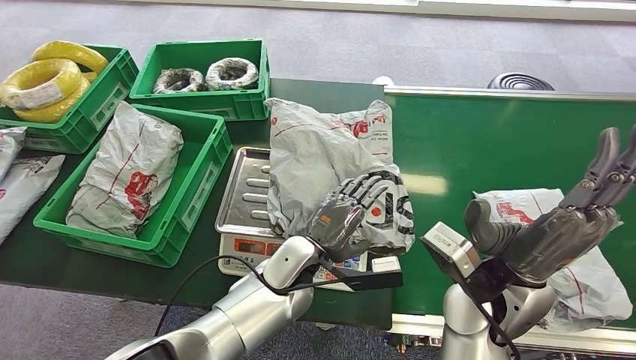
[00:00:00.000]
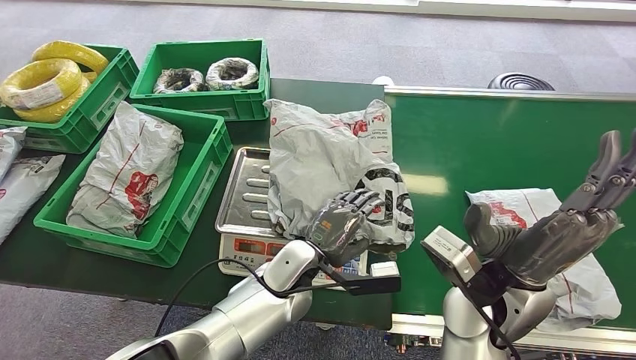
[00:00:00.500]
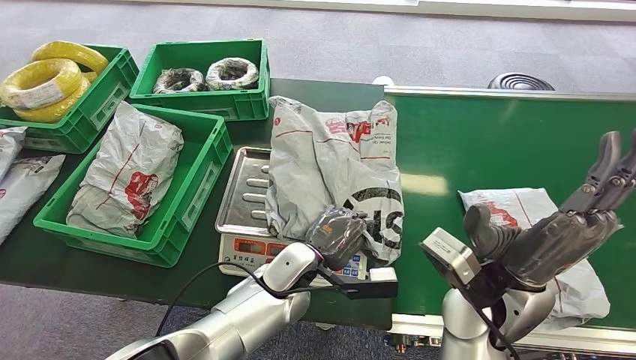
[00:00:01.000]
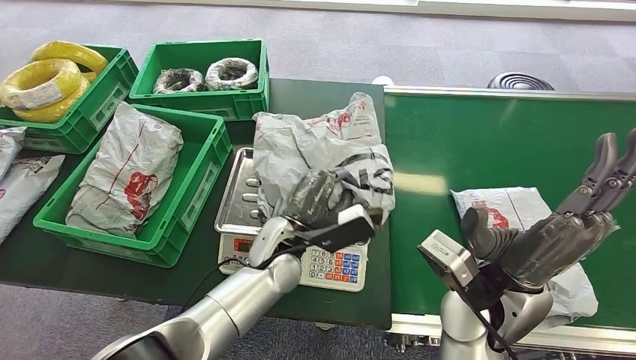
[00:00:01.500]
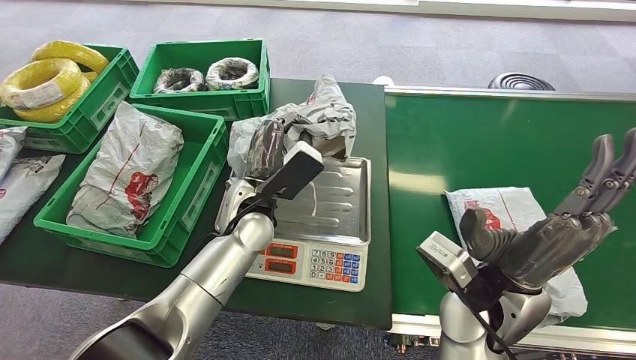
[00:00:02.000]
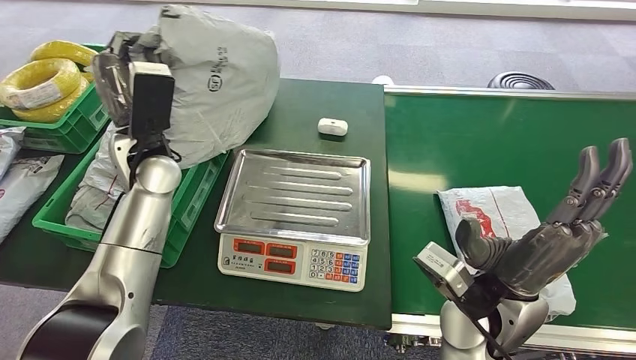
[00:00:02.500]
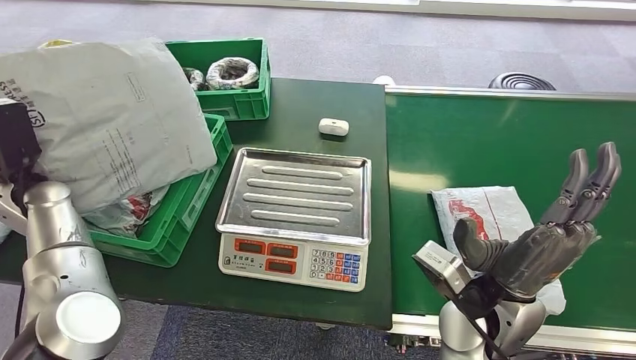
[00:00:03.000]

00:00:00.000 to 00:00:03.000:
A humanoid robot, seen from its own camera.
Step, 00:00:00.000 to 00:00:02.000: Pick up the package from the inbound machine.
Step, 00:00:02.500 to 00:00:03.000: Place the package into the parcel locker.
